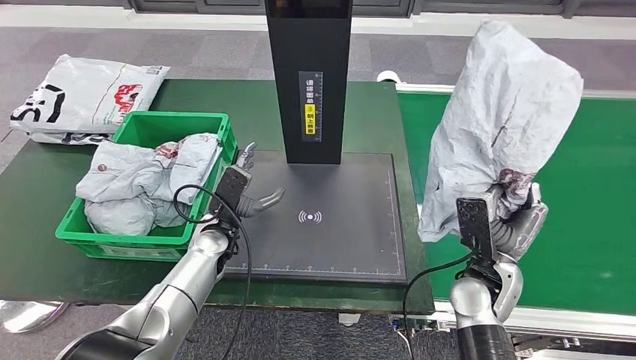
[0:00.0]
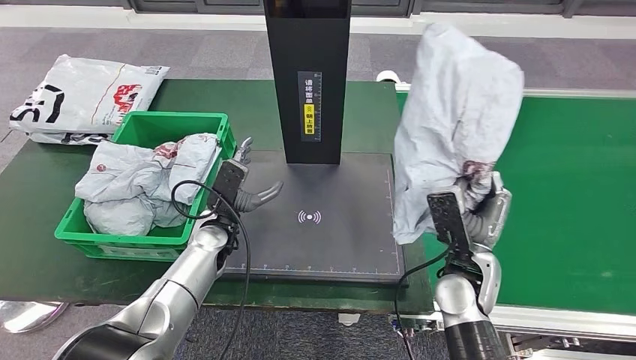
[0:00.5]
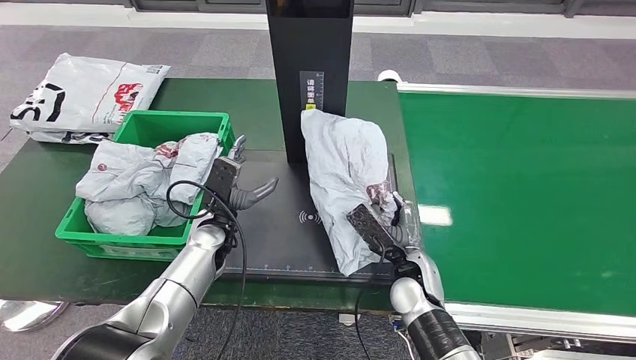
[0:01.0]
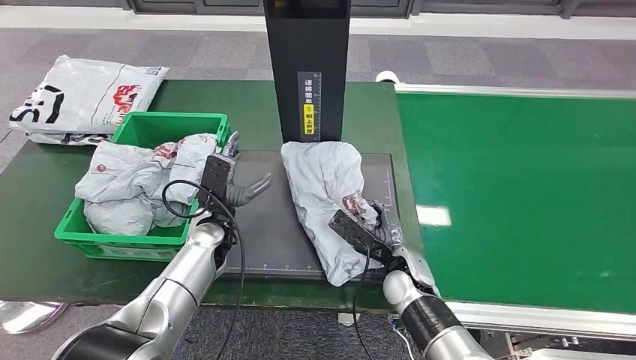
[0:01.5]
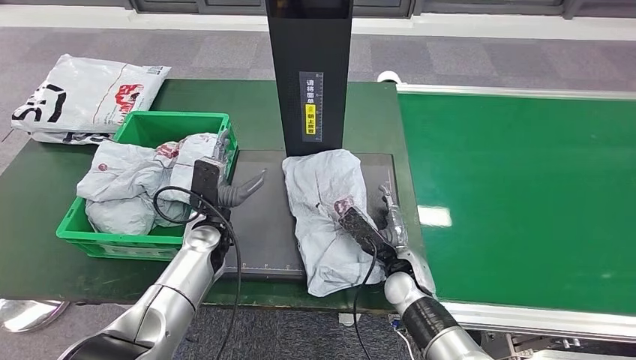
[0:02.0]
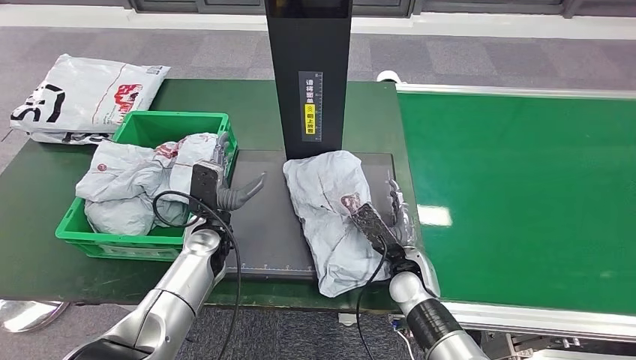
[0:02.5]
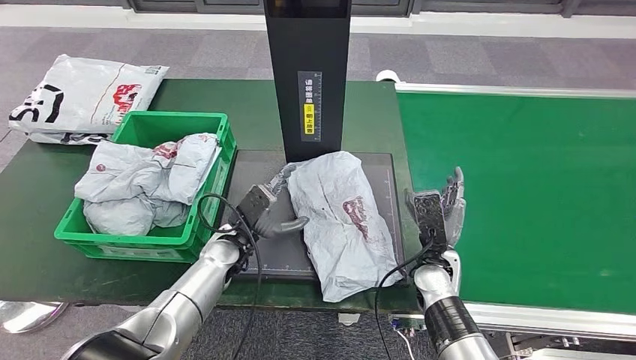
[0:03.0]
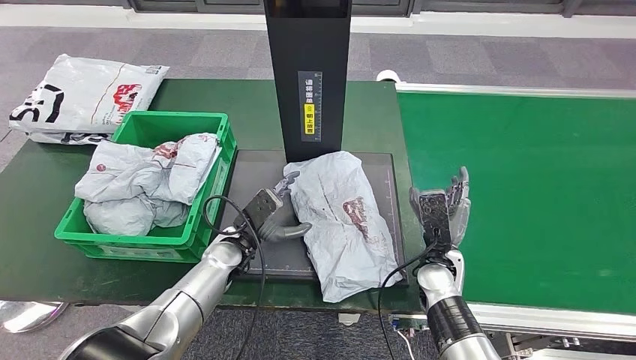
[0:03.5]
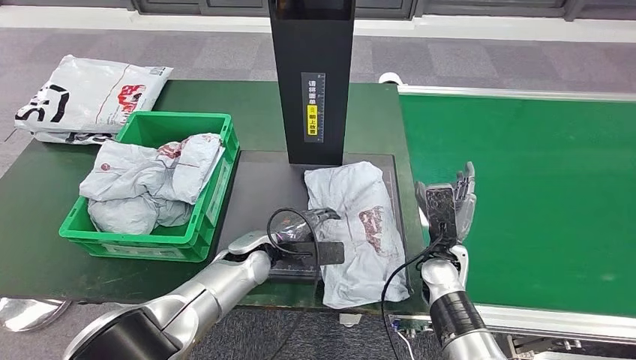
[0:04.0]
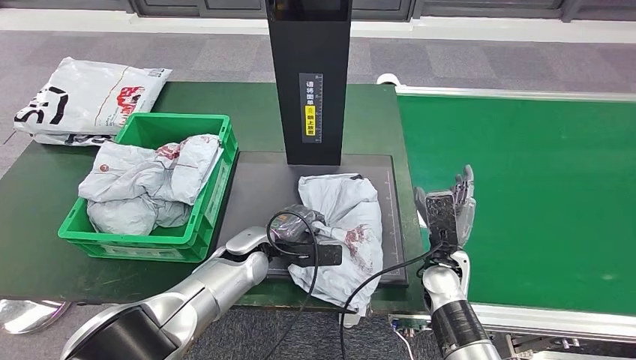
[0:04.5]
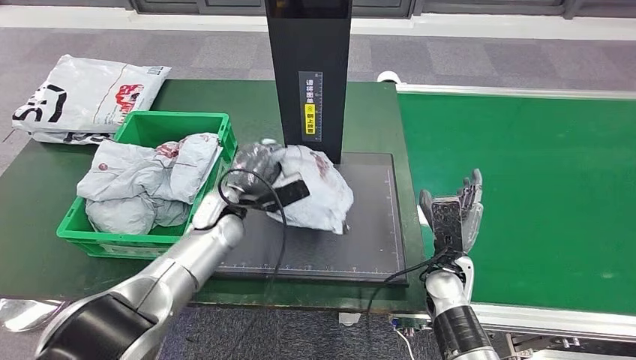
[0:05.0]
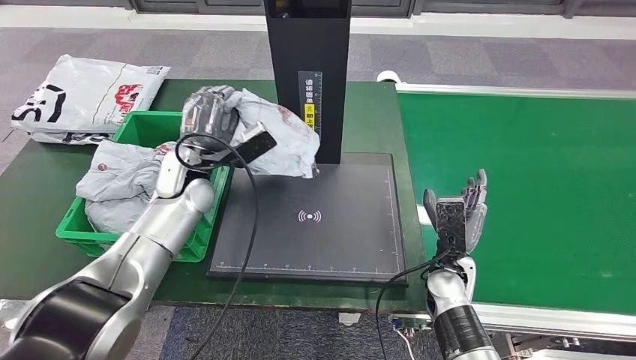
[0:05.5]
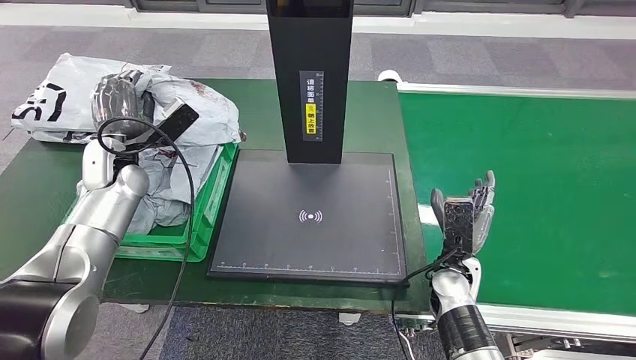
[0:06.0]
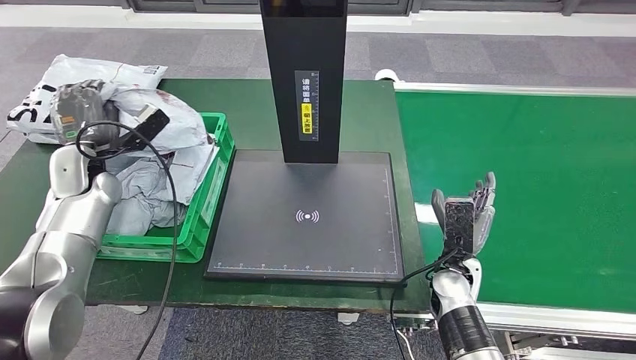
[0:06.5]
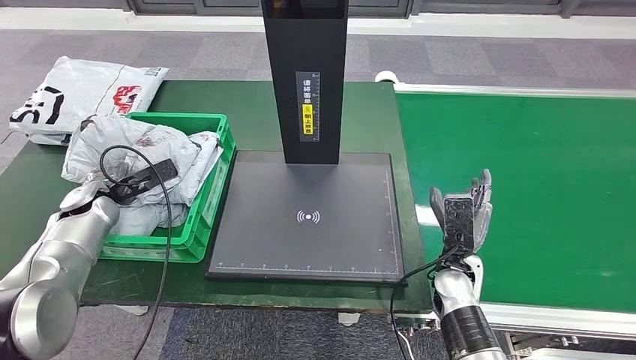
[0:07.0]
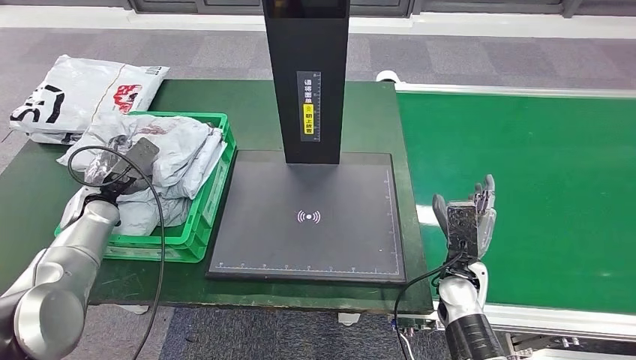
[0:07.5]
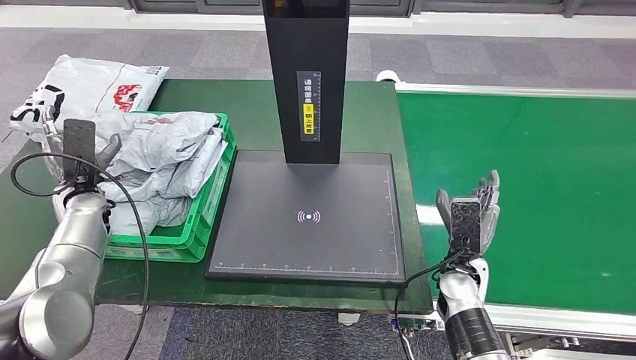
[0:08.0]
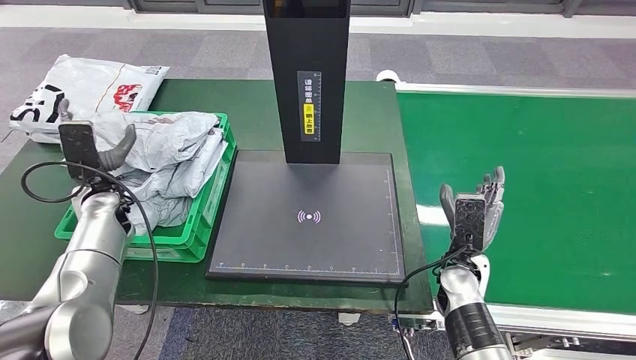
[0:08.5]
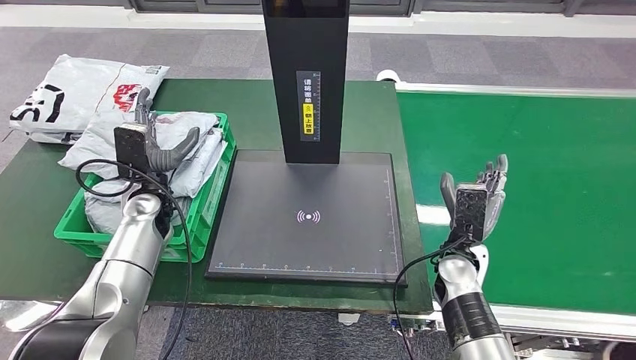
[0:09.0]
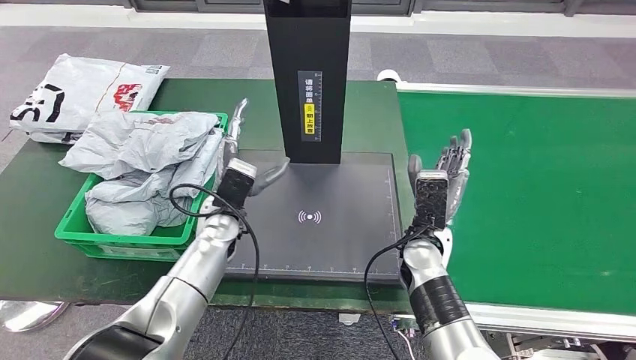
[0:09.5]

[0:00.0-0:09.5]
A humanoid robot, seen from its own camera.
Step, 0:00.5 to 0:02.5: Place the parcel onto the inbound machine.
Step, 0:03.0 to 0:05.5: Pick up the parcel from the inbound machine.
Step, 0:06.0 to 0:09.5: Place the parcel into the delivery box.
